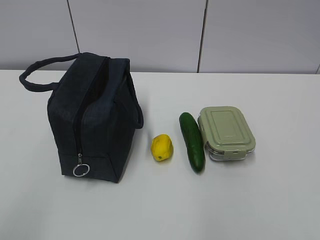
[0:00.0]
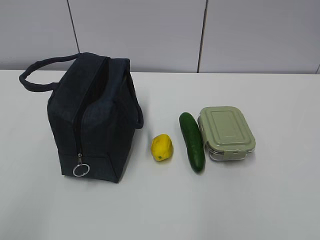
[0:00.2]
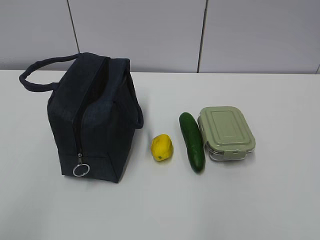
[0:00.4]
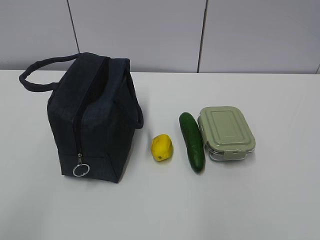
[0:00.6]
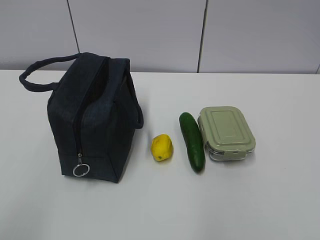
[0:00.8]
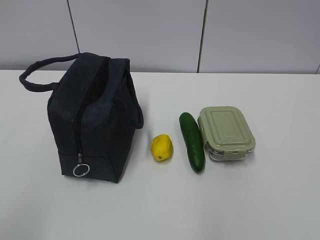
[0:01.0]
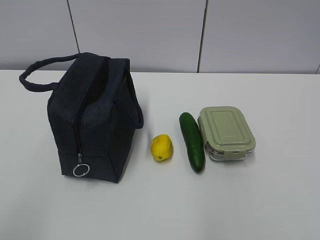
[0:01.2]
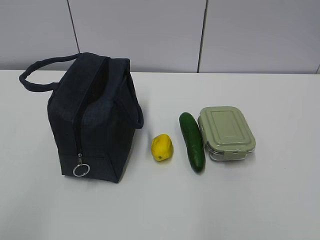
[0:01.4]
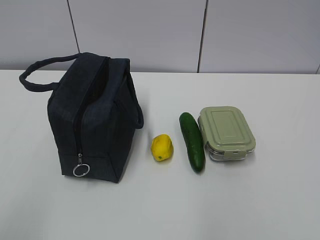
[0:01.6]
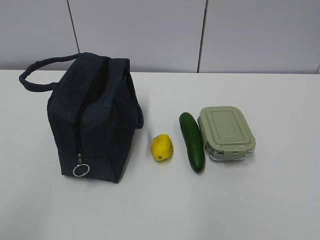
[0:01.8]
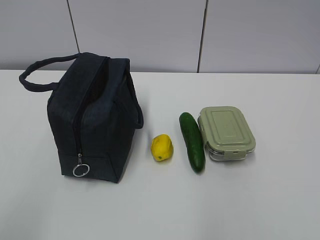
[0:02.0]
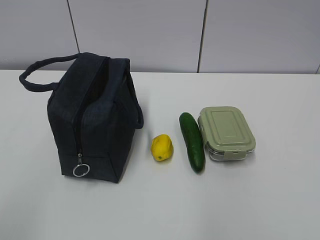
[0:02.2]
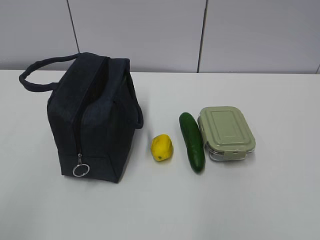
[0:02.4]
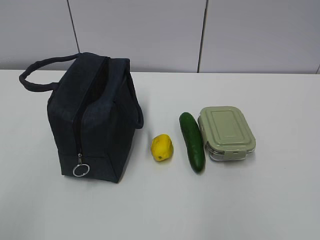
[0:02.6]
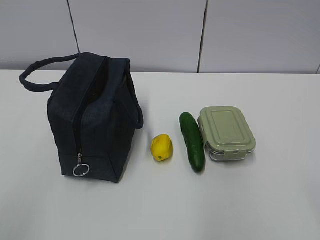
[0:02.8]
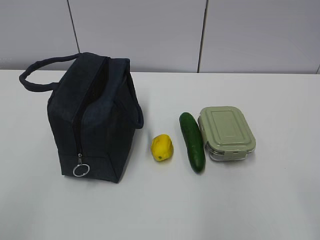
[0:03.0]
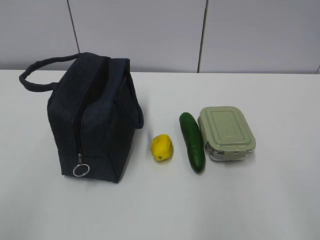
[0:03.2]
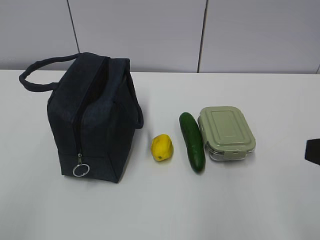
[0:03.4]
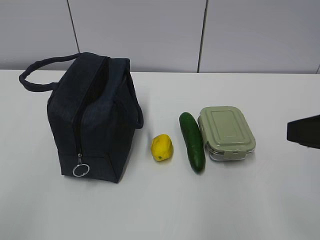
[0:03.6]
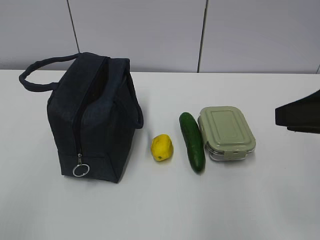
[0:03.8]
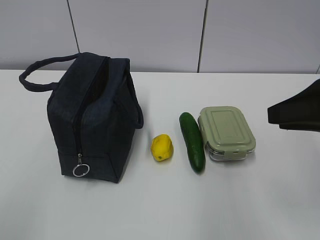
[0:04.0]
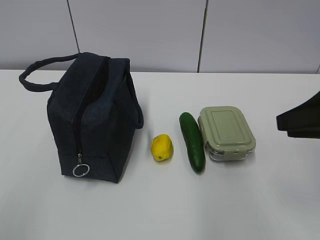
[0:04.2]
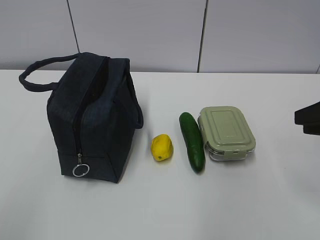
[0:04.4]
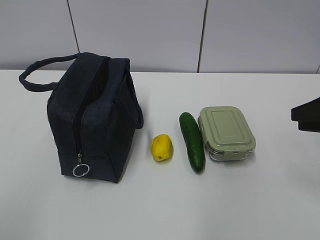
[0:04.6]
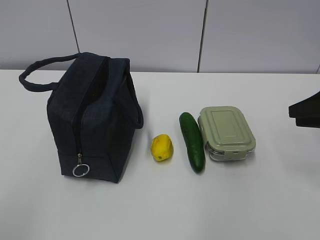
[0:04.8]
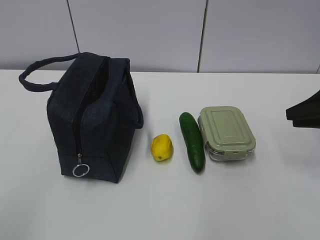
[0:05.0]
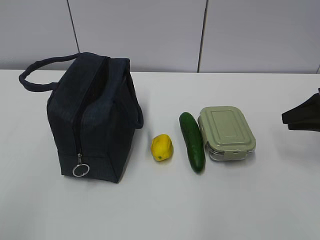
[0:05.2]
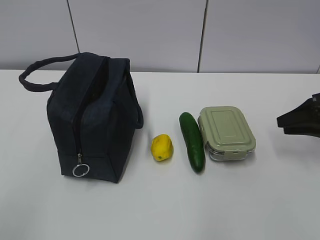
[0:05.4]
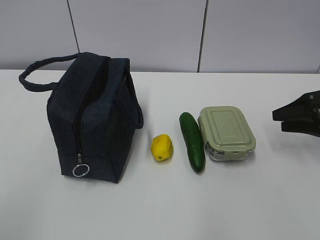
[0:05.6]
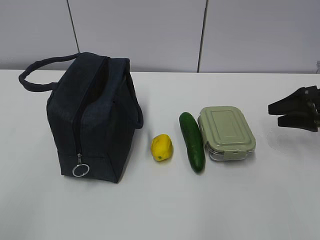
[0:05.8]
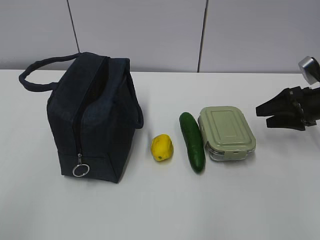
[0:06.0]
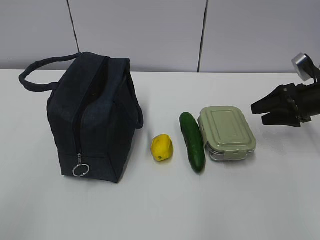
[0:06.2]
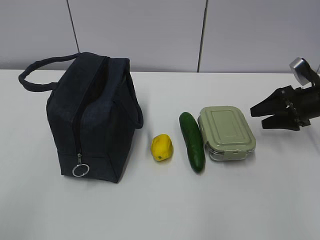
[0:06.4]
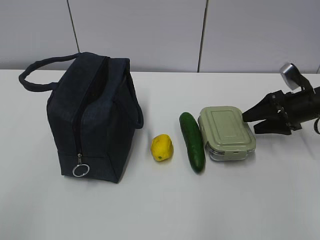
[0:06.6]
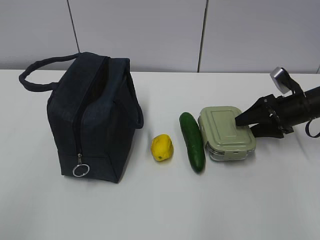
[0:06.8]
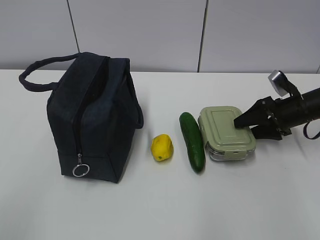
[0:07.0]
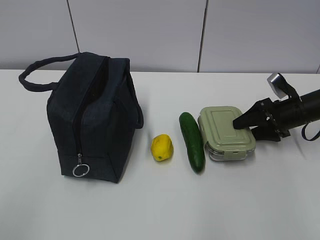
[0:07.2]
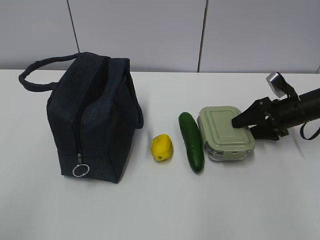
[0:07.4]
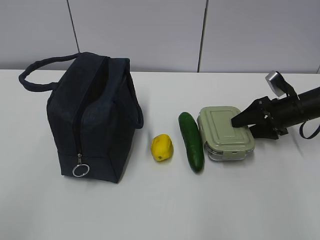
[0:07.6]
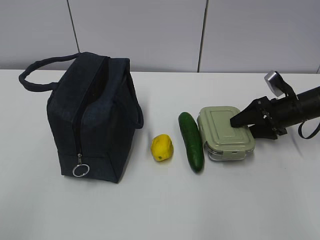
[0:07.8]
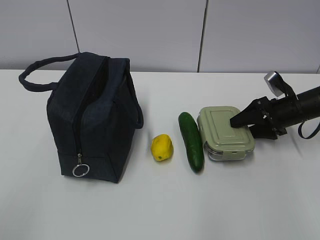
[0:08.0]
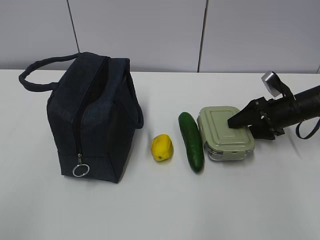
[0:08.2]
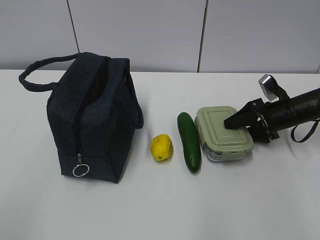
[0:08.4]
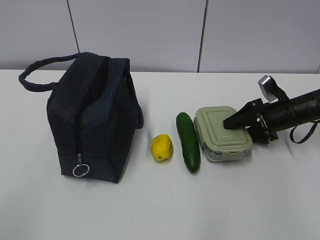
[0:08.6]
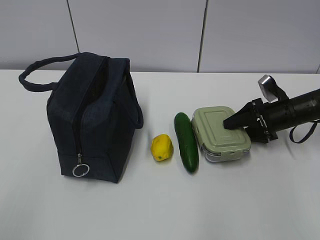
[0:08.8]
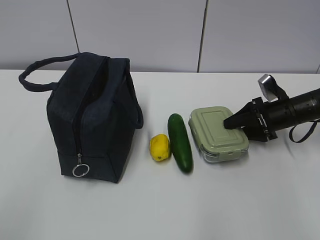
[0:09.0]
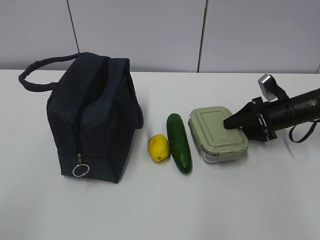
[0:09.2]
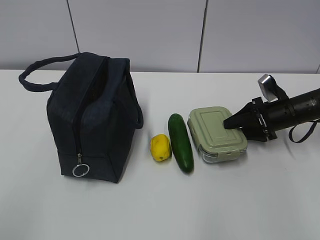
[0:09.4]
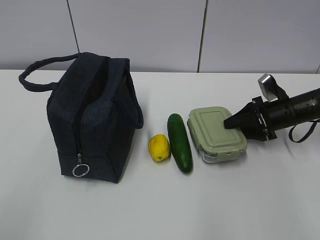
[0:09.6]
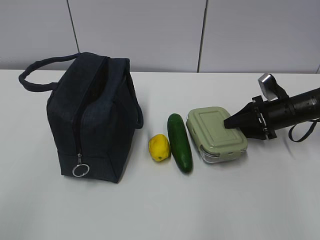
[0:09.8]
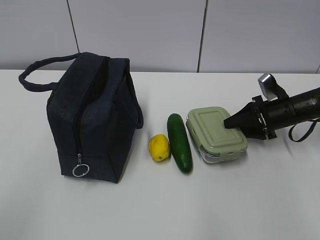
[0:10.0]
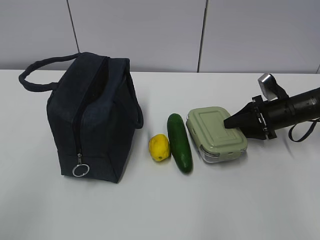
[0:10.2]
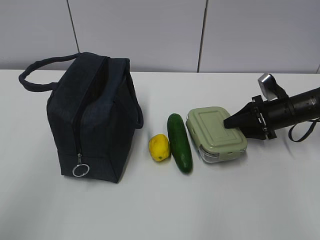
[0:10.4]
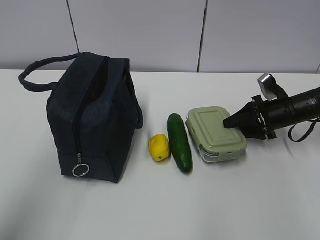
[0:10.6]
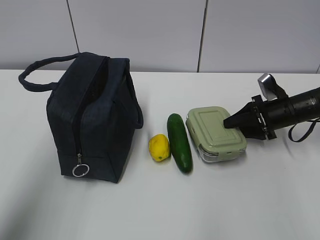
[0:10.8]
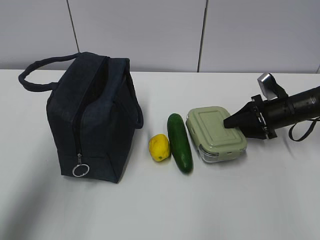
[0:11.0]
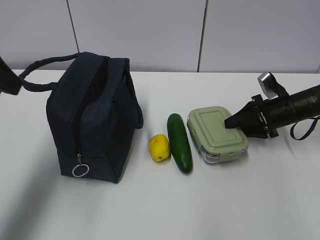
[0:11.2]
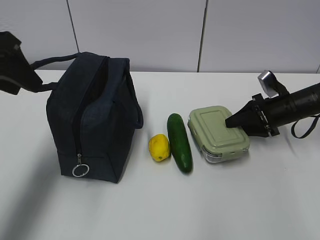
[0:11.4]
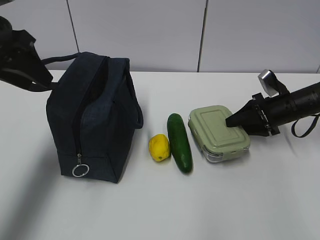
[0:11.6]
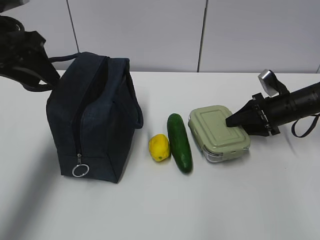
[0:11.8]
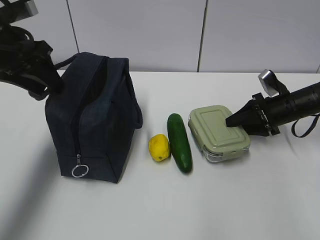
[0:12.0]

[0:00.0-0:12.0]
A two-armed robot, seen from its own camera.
Step, 0:00.0 to 0:12.0: Grab the lunch box with your right hand.
0:03.0 to 0:04.4: The right gripper heads forward, covering about 20 cm.
0:04.4 to 0:06.0: The right gripper is displaced forward and downward by roughly 20 cm, and opens its fingers.
0:06.0 to 0:07.6: The right gripper shifts by some 5 cm.
0:07.6 to 0:09.0: The grippers move only a little.
0:10.4 to 0:12.0: The left gripper travels forward by about 30 cm.

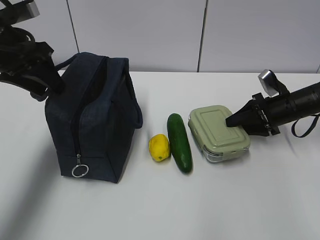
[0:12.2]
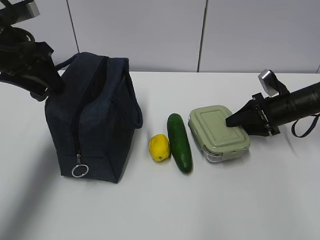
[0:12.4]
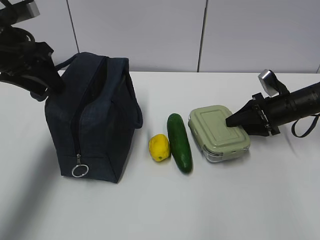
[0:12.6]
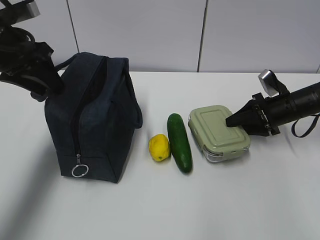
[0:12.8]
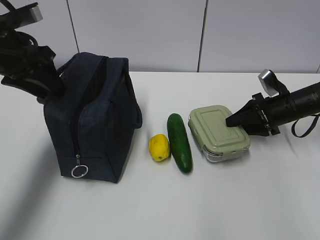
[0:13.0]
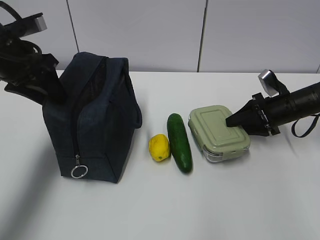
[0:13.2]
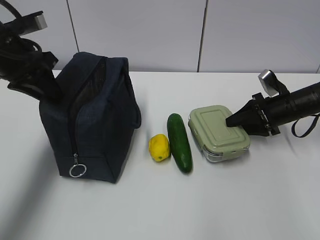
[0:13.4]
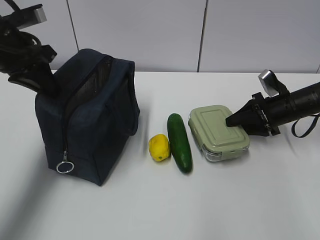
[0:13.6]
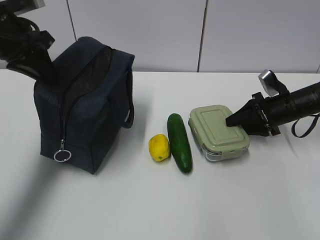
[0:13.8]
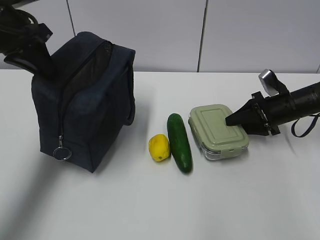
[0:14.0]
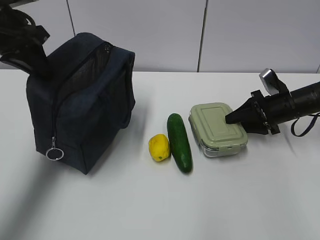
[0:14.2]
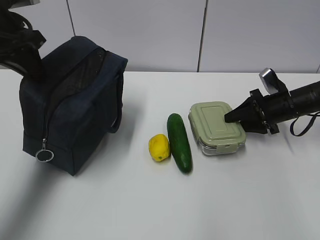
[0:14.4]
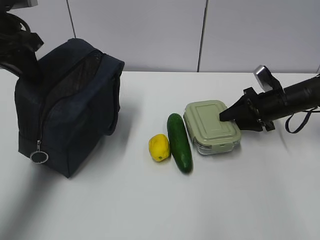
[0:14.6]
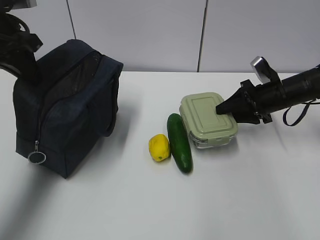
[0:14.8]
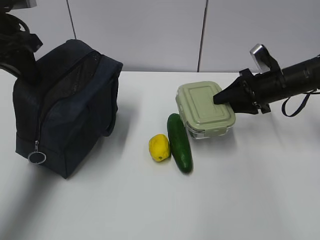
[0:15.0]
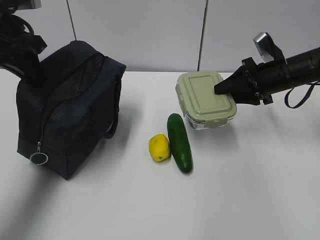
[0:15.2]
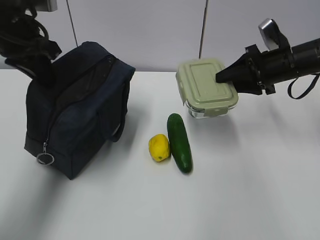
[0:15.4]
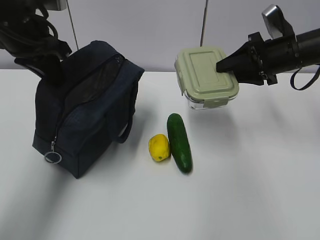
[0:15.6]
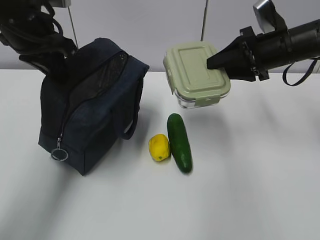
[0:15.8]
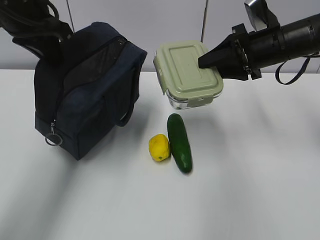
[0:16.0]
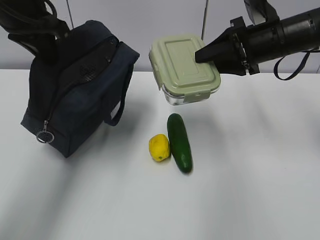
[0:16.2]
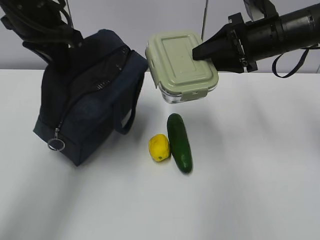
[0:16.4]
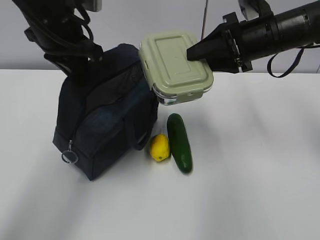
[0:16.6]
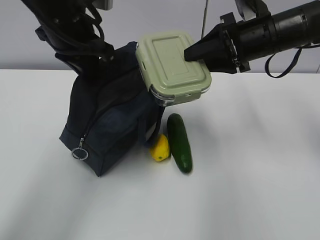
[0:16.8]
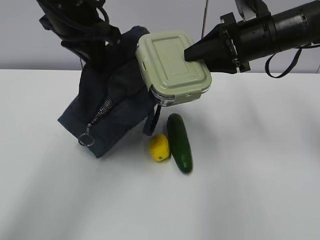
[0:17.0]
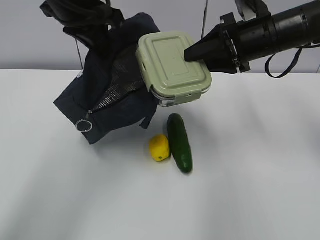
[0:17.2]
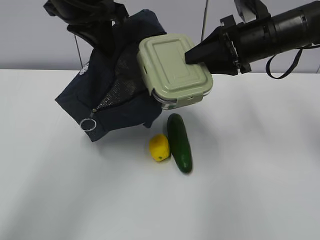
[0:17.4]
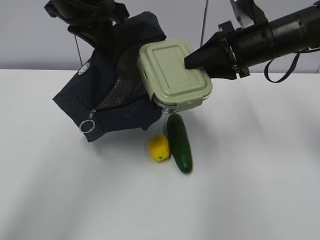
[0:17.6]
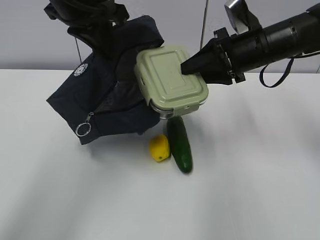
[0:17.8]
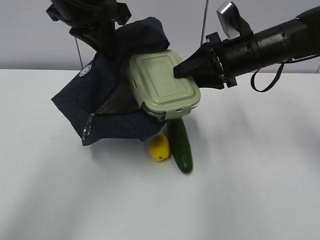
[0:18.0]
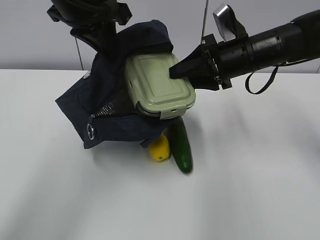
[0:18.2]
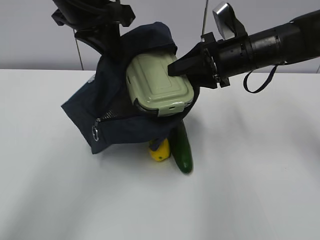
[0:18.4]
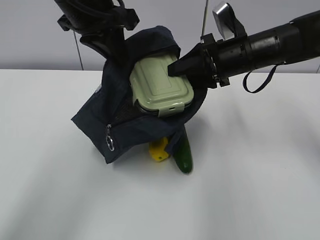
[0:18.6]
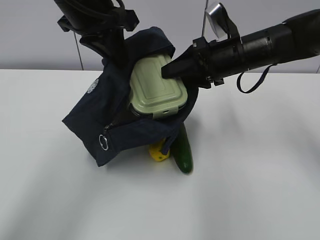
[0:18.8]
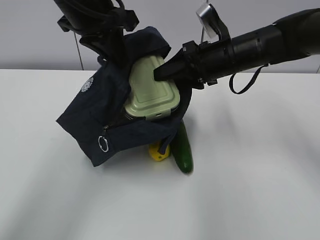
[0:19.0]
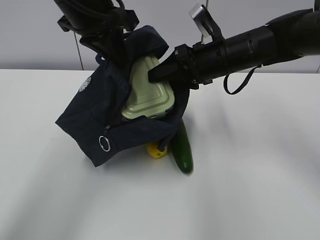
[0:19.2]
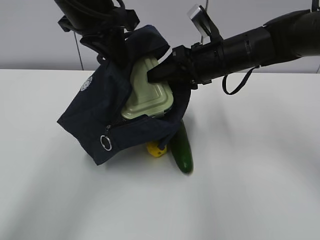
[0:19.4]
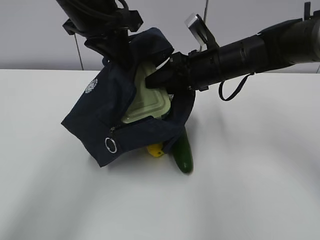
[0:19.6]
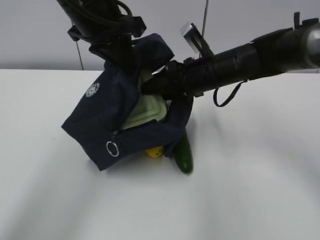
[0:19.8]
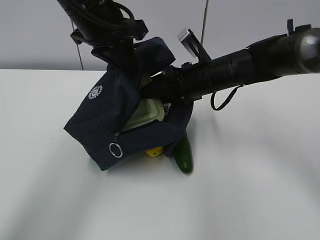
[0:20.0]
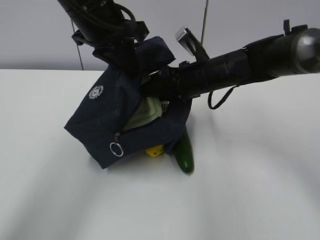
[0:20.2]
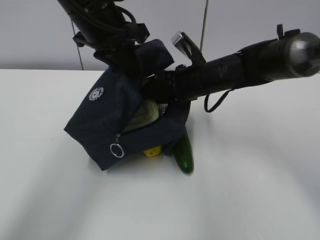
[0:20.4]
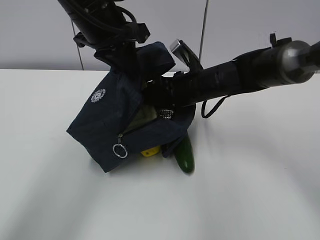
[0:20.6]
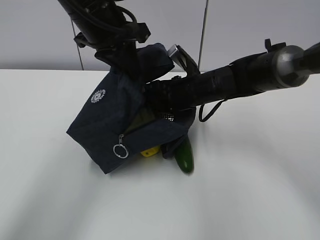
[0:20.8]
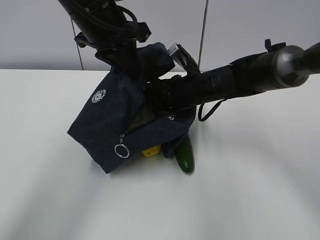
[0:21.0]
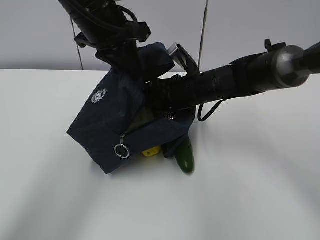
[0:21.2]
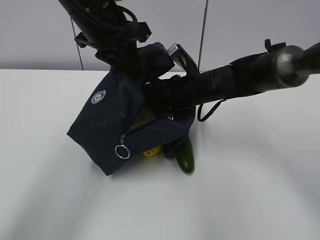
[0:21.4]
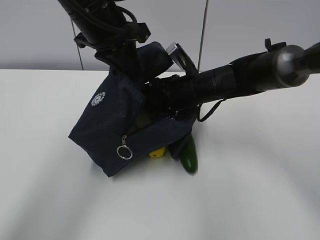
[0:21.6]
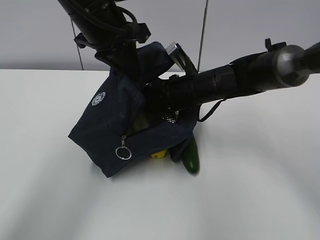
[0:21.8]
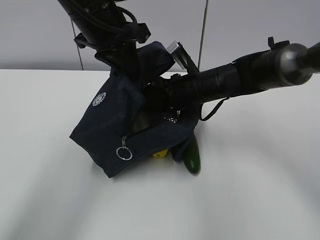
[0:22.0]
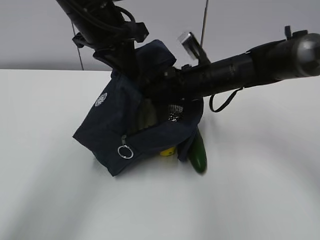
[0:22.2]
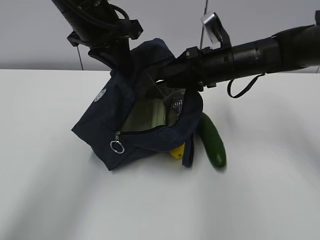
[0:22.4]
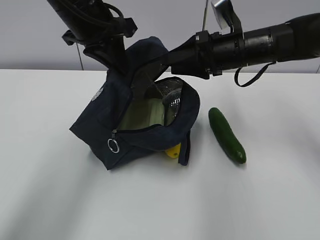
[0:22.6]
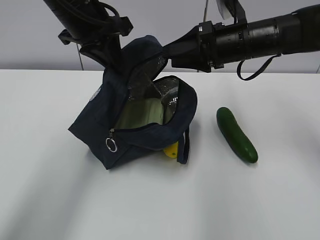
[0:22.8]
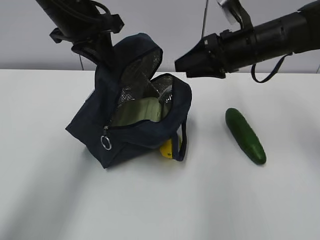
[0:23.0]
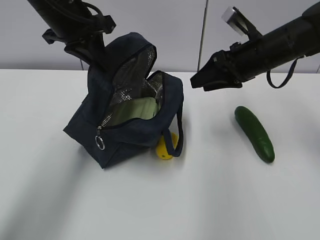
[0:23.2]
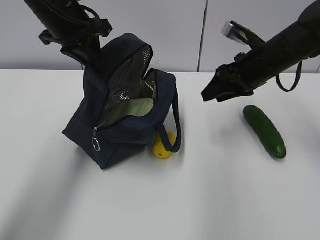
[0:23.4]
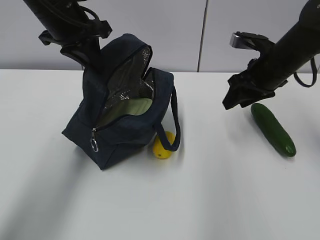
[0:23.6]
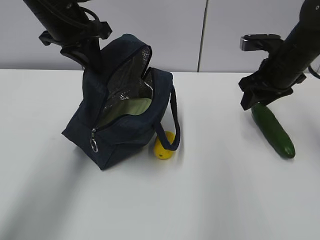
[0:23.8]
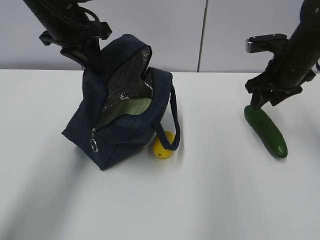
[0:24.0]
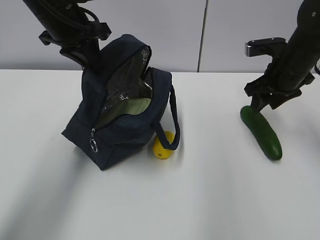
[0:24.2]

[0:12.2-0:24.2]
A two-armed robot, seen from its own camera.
Step, 0:12.2 to 0:14.2: Grab the lunch bag with your left hand.
Step, 0:14.4 to 0:18.4: Place it into the bag with your right hand.
Step, 0:18.6 to 0:21.2: Grab the cucumber with your right hand.
0:12.2 to 0:13.8: The left gripper closes.
0:13.8 to 0:15.2: The right gripper moves upward, approximately 10 cm.
0:15.2 to 0:16.6: The right gripper moves upward and to the left, some 10 cm, while the left gripper is displaced to the right by approximately 10 cm.
0:16.6 to 0:18.2: The left gripper moves approximately 5 cm.
0:18.2 to 0:19.8: The right gripper travels to the left by approximately 5 cm.
0:19.8 to 0:21.2: The grippers move only a little.
0:21.2 to 0:22.6: The right gripper travels upward and to the right by some 10 cm.
0:22.6 to 0:24.2: The right gripper shifts approximately 10 cm to the right.
